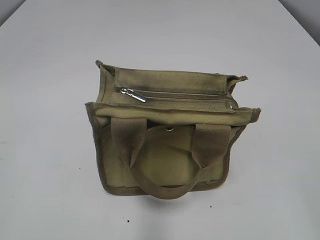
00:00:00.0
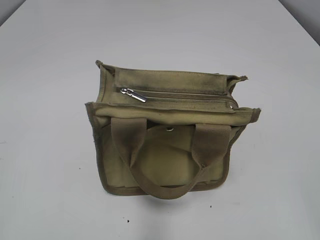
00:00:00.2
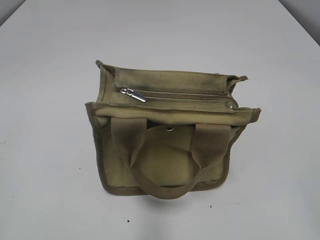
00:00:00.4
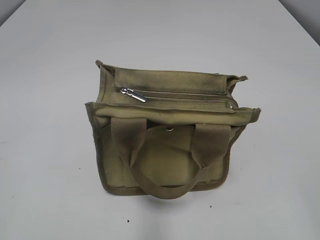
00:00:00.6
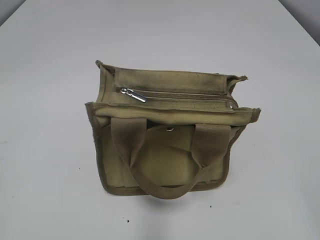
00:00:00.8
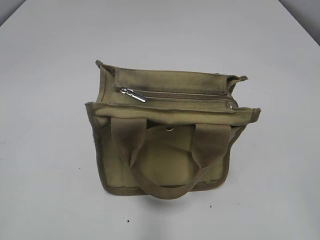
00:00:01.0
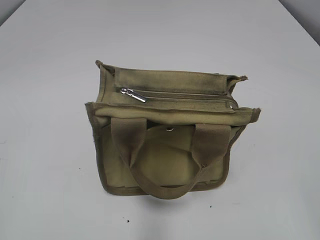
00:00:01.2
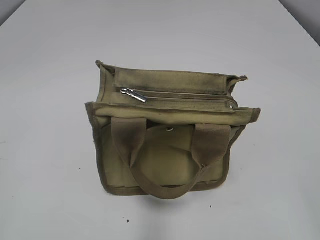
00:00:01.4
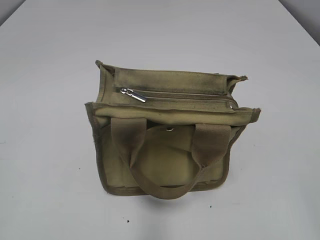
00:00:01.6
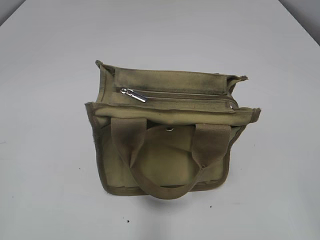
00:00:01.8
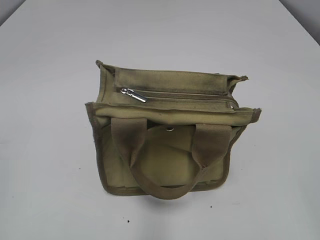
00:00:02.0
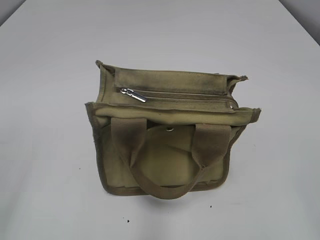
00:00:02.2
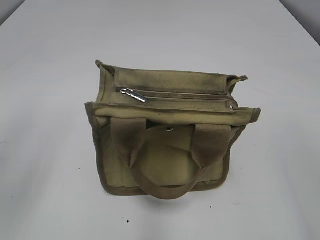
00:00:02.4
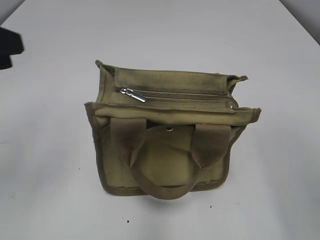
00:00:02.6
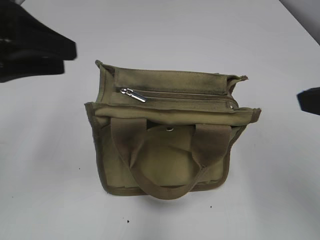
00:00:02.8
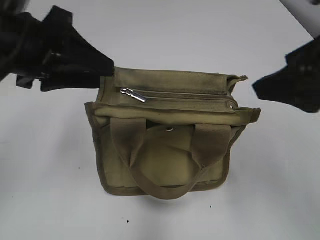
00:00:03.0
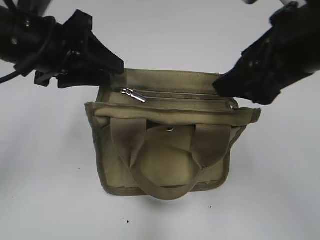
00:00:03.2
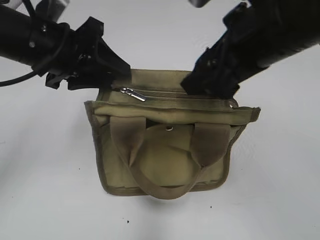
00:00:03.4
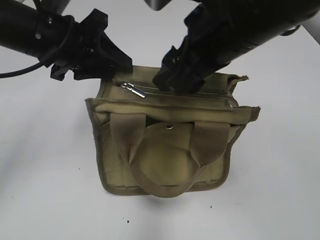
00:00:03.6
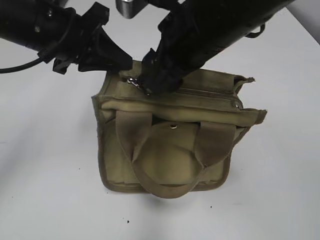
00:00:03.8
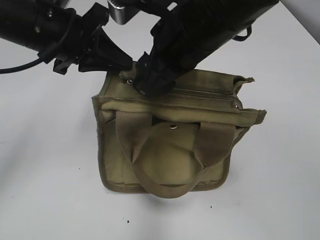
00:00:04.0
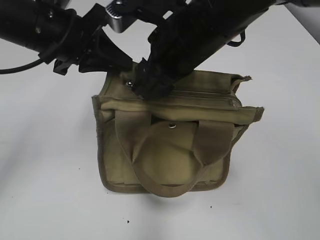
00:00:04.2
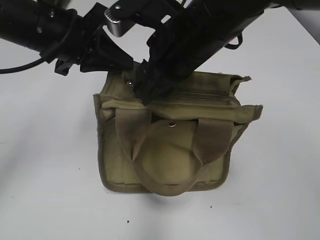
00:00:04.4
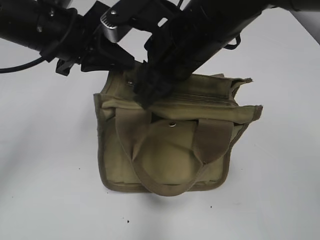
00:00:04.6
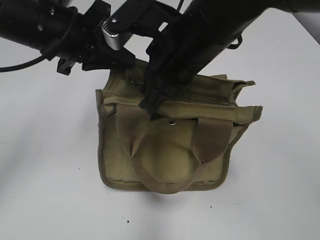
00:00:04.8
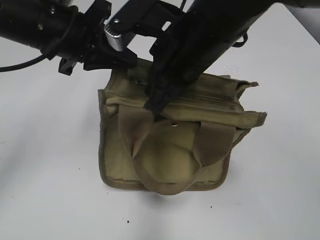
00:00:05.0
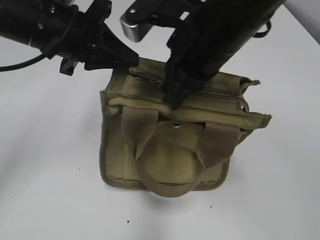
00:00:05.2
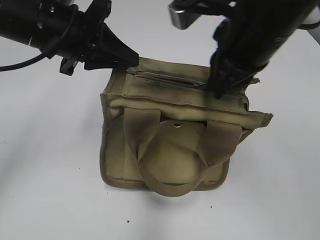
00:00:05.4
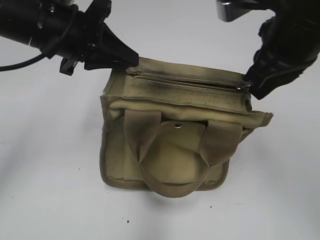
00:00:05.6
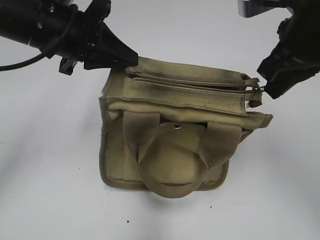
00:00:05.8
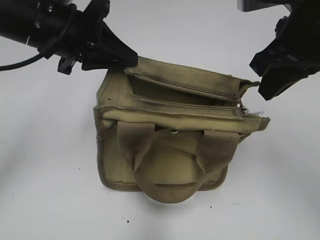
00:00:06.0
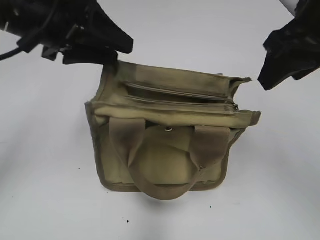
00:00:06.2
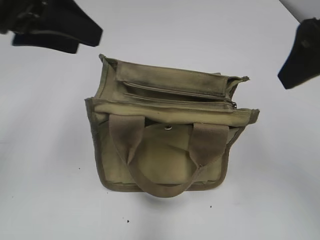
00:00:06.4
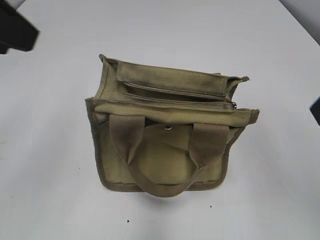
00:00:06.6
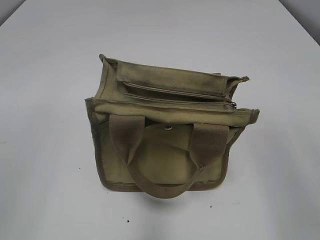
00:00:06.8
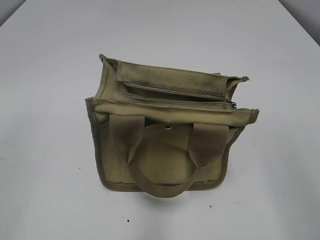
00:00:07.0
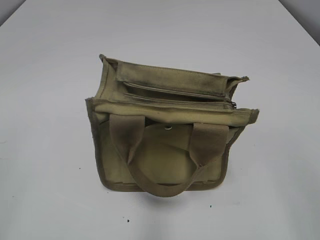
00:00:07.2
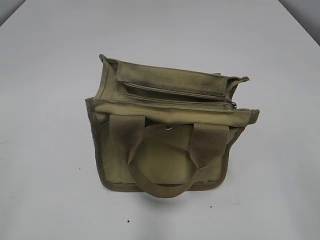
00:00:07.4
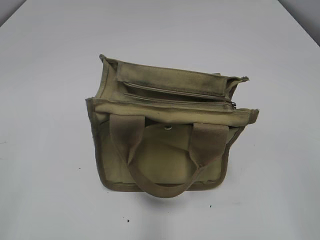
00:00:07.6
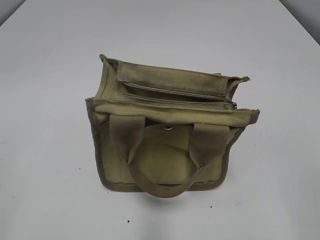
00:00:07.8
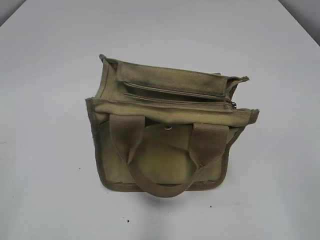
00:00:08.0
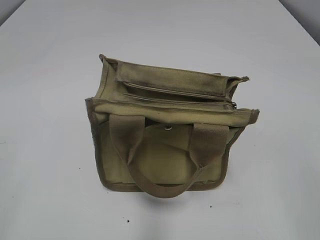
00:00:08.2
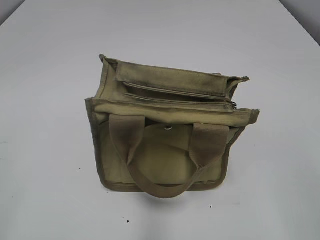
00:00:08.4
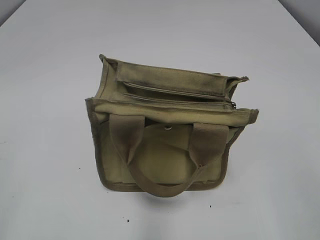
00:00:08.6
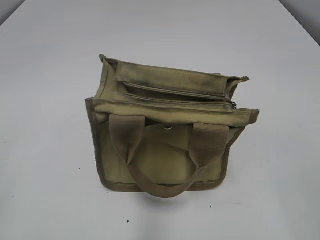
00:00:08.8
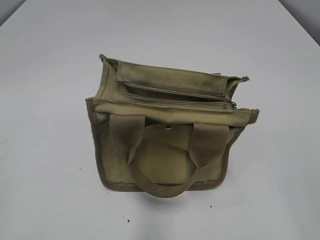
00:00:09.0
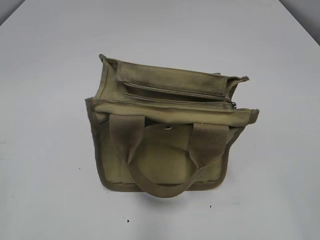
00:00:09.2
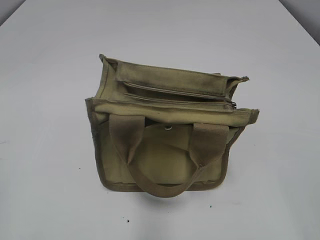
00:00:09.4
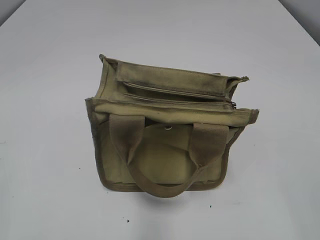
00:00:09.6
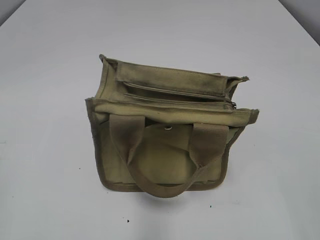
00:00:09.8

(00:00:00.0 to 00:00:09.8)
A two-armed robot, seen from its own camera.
Step, 00:00:00.0 - 00:00:05.8: Pull open the zipper with your right hand.
00:00:01.4 - 00:00:02.8: The right gripper shifts roughly 10 cm forward, while the left gripper heads forward and to the right, covering approximately 20 cm.
00:00:02.8 - 00:00:04.2: The left gripper shifts some 15 cm forward and to the right, and closes its fingers; the right gripper moves to the left and forward, about 25 cm.
00:00:04.2 - 00:00:05.6: The right gripper moves to the right, roughly 10 cm, and closes up.
00:00:05.6 - 00:00:07.0: The right gripper heads backward and to the right, covering about 20 cm, and opens up, while the left gripper shifts about 25 cm backward, to the left and upward, and opens.

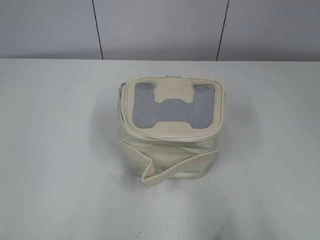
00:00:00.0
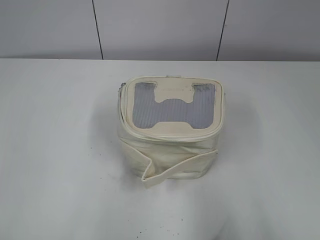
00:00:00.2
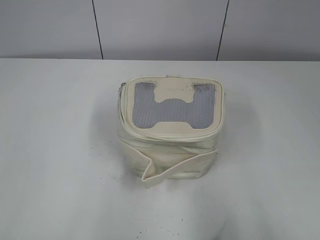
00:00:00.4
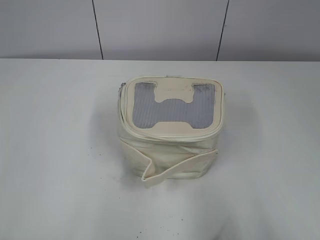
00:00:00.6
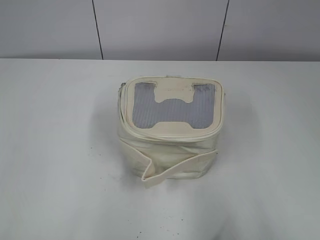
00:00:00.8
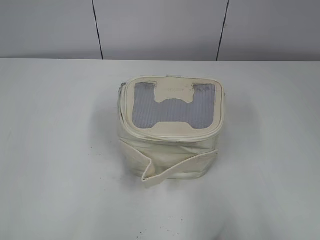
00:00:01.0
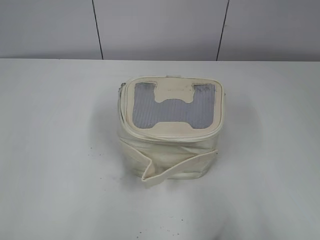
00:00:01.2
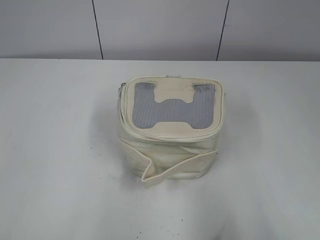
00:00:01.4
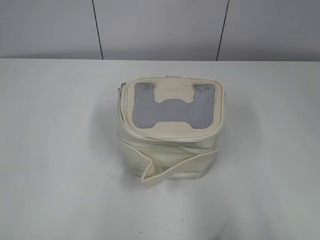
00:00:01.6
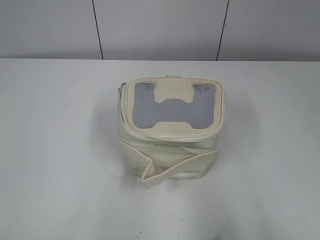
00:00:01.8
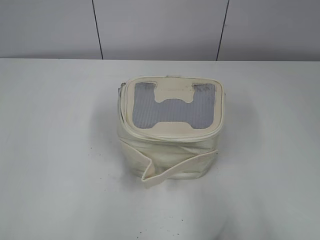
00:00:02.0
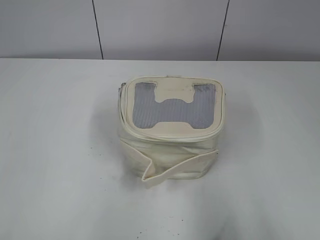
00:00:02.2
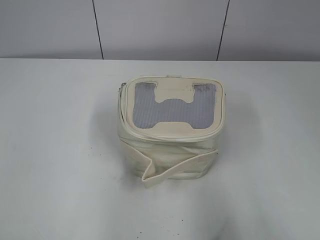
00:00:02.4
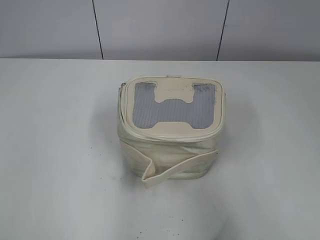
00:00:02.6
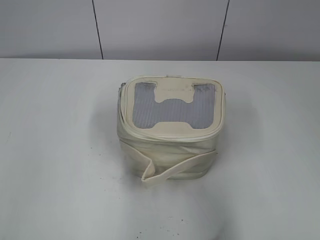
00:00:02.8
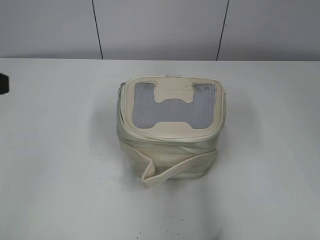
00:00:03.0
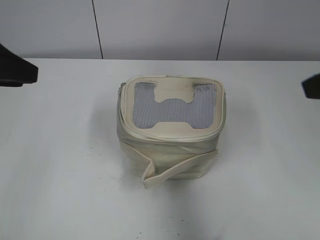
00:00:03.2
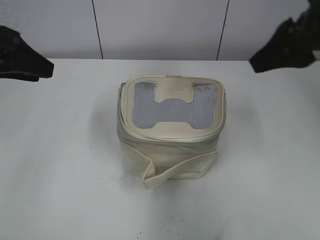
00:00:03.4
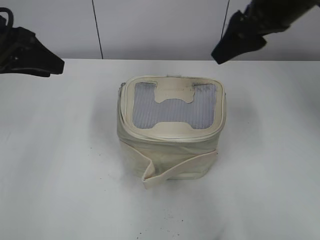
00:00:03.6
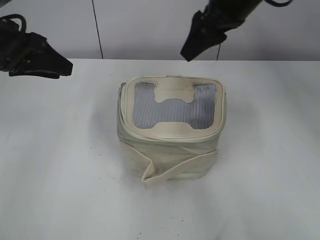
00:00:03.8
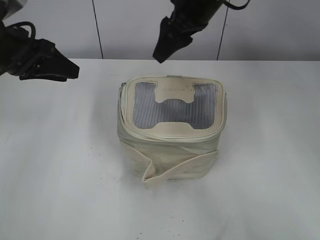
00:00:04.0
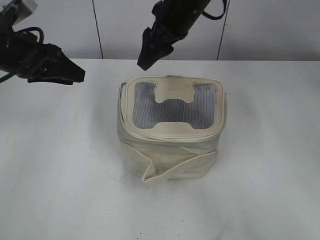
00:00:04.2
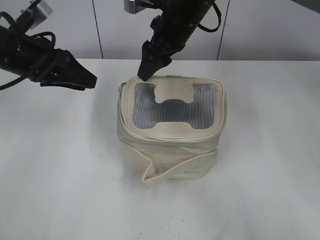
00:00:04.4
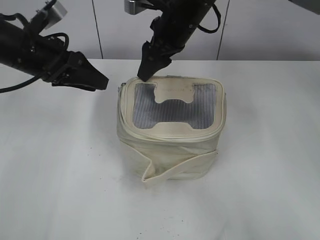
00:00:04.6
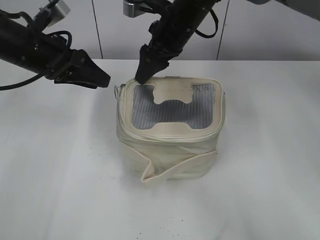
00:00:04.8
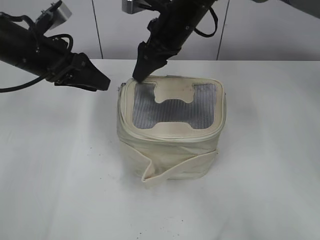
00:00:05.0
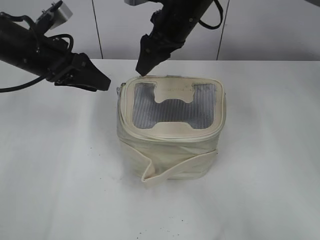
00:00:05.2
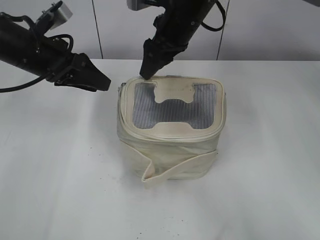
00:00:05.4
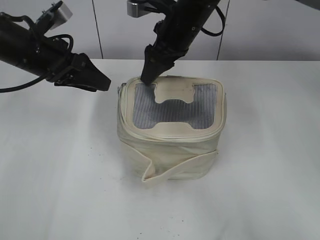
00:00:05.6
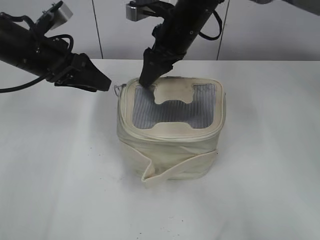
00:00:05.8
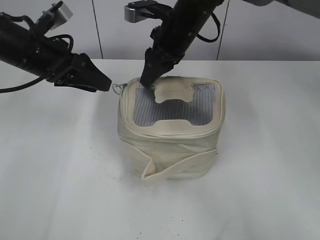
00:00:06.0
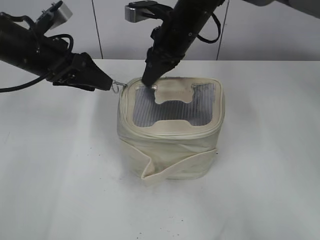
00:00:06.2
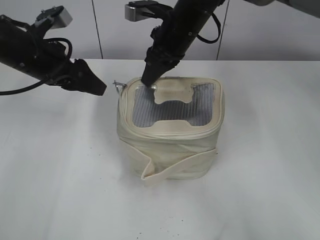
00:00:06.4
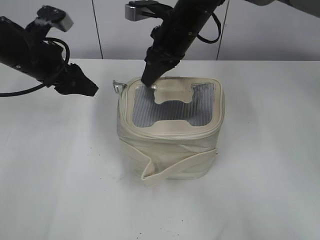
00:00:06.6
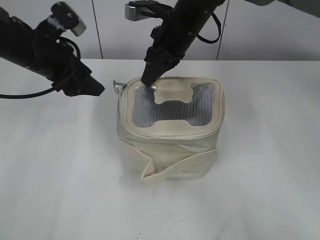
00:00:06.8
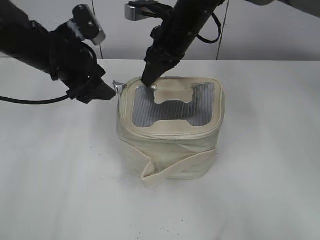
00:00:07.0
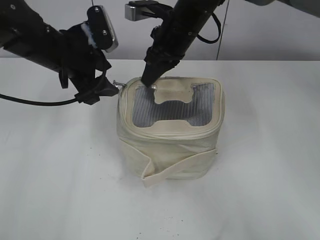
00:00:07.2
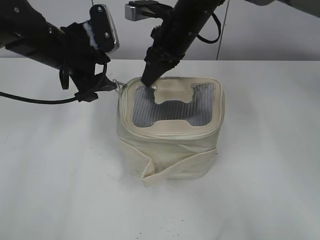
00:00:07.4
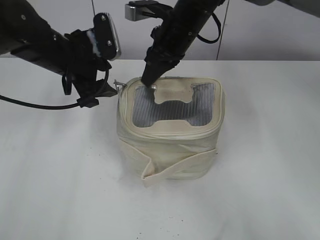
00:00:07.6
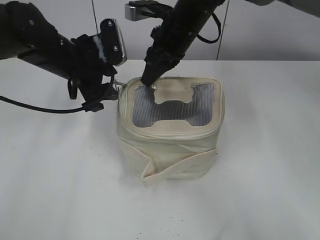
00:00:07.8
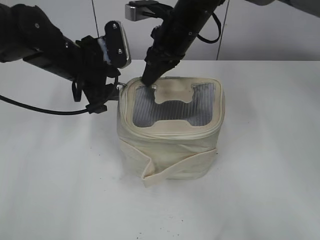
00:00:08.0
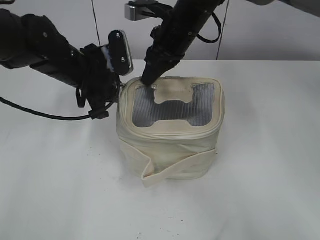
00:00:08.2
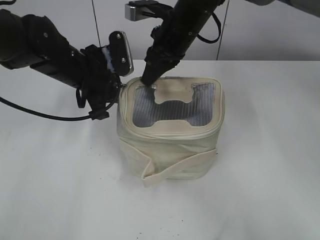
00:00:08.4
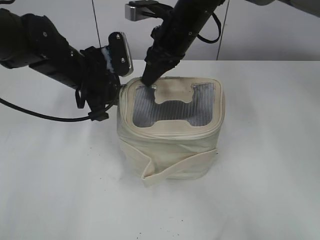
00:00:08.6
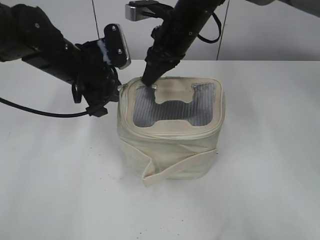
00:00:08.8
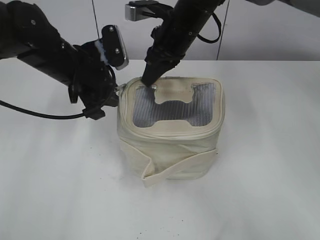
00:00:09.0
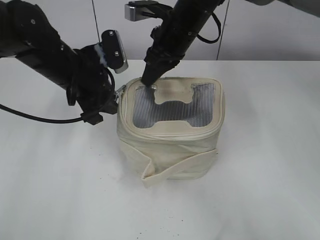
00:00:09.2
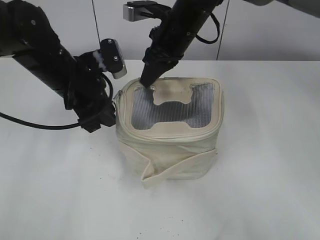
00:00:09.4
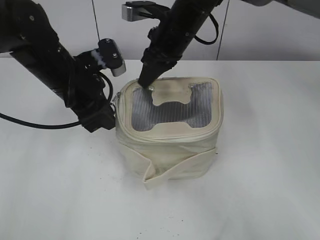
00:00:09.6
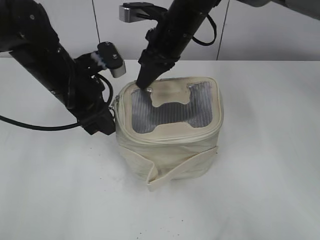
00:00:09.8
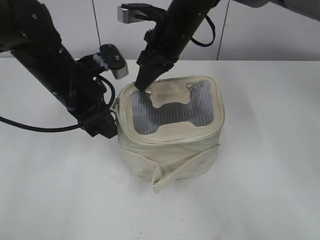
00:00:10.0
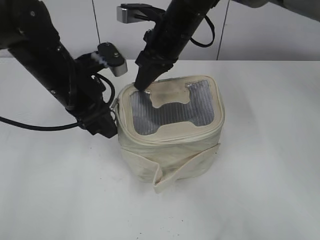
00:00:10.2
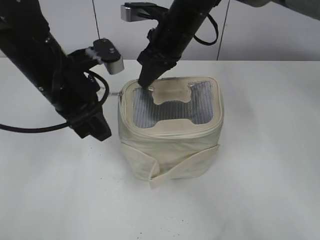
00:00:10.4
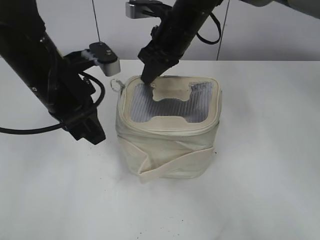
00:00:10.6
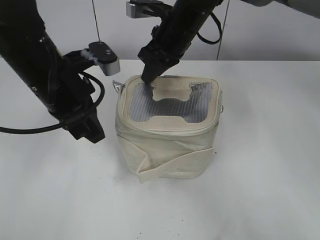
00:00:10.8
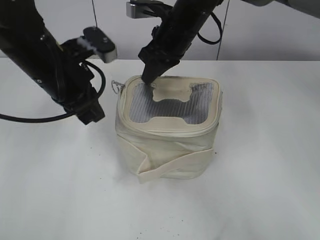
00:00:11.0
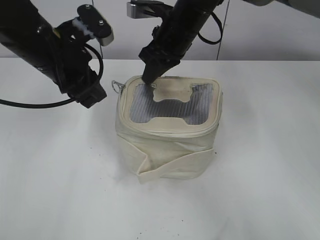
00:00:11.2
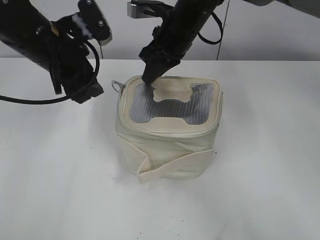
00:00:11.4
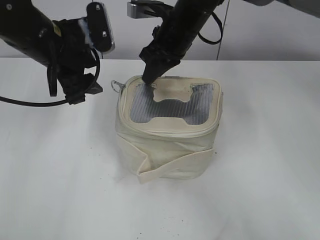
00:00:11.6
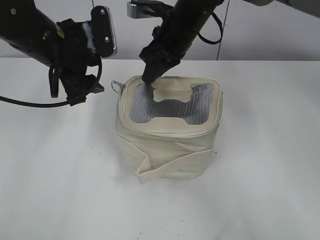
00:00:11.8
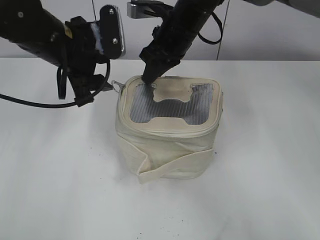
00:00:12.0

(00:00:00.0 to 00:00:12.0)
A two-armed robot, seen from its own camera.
00:00:01.6 - 00:00:03.0: The left gripper moves forward, approximately 15 cm; the right gripper heads forward, covering about 10 cm.
00:00:03.0 - 00:00:04.4: The left gripper moves forward and downward, about 20 cm; the right gripper heads forward and to the left, covering roughly 40 cm.
00:00:04.4 - 00:00:06.0: The right gripper closes its fingers.
00:00:06.0 - 00:00:07.6: The right gripper closes its fingers.
00:00:07.6 - 00:00:09.0: The left gripper closes.
00:00:09.0 - 00:00:10.4: The left gripper moves backward, approximately 5 cm.
00:00:10.4 - 00:00:12.0: The left gripper opens its fingers.
